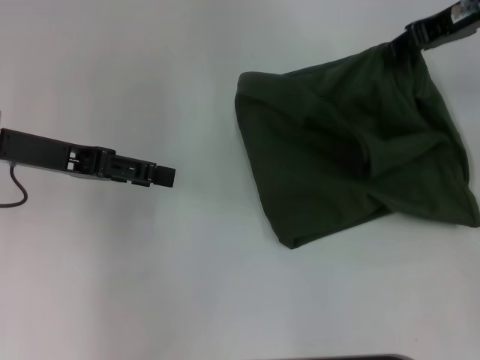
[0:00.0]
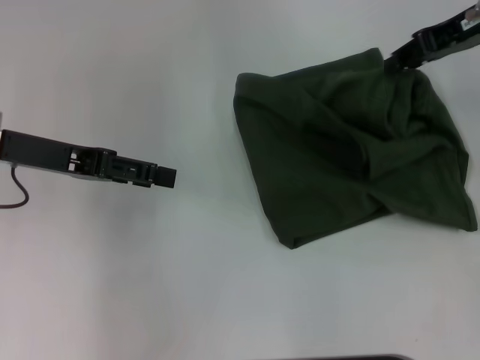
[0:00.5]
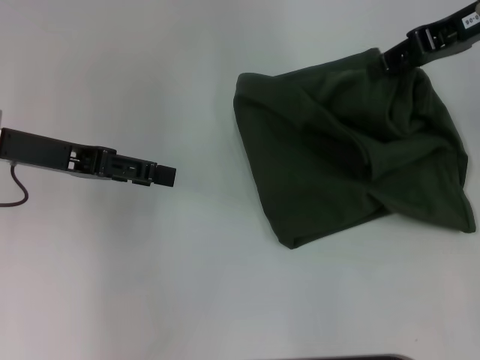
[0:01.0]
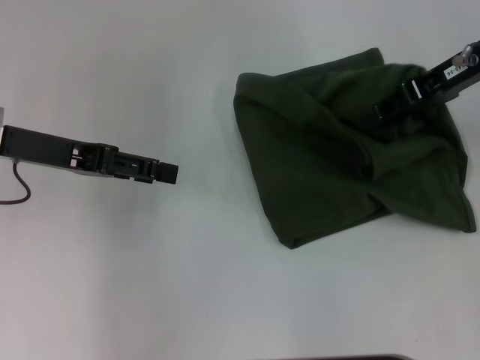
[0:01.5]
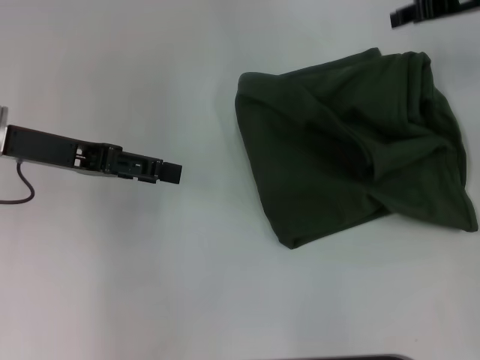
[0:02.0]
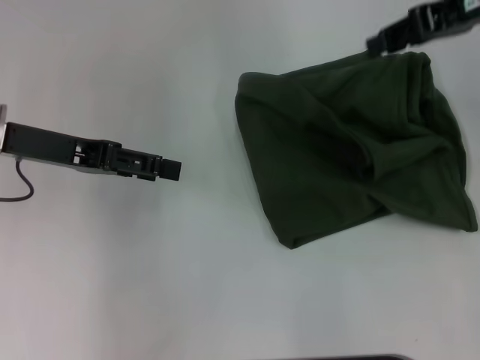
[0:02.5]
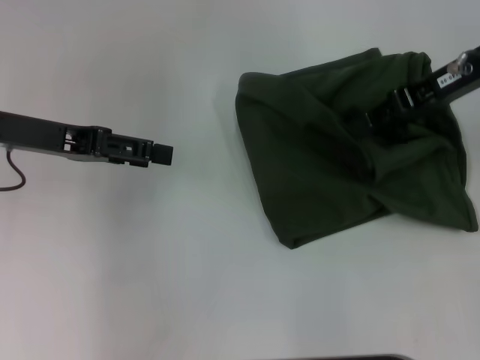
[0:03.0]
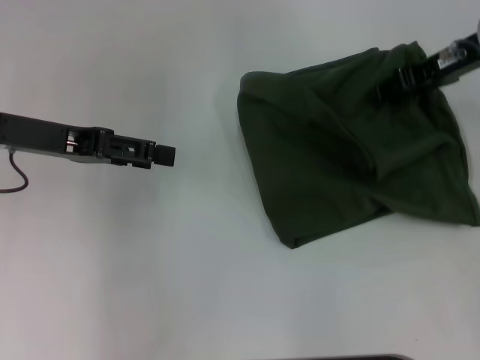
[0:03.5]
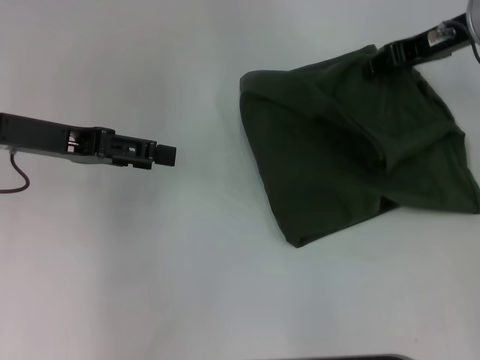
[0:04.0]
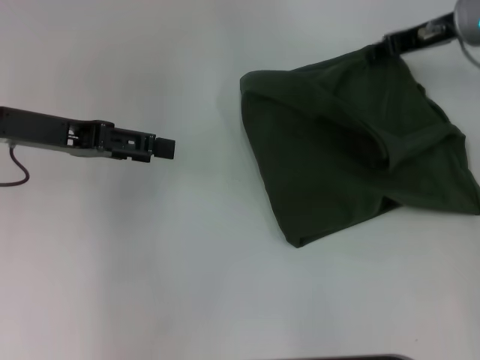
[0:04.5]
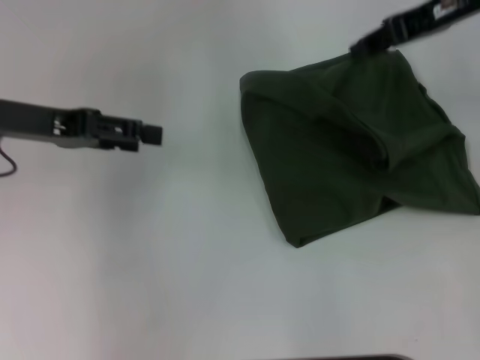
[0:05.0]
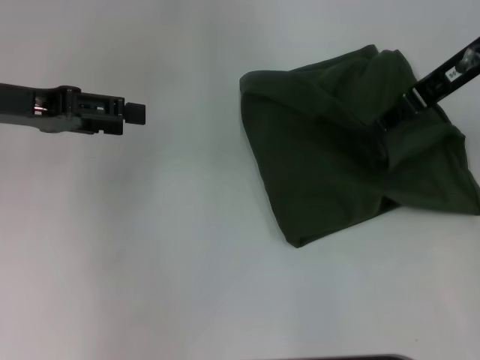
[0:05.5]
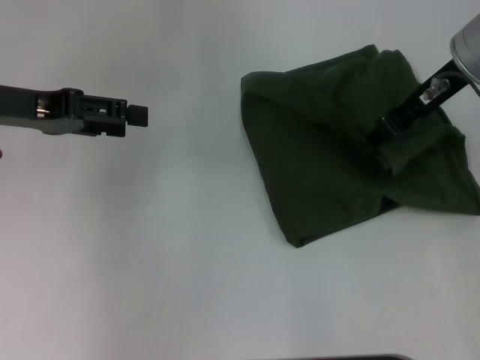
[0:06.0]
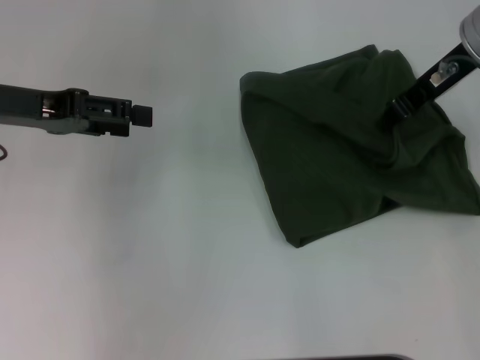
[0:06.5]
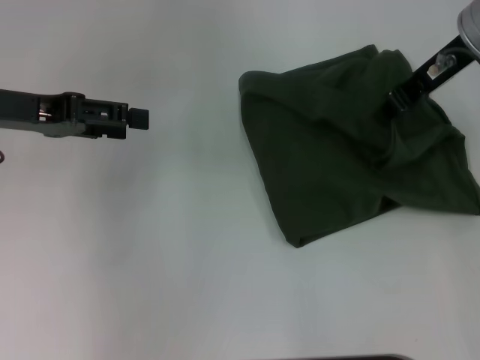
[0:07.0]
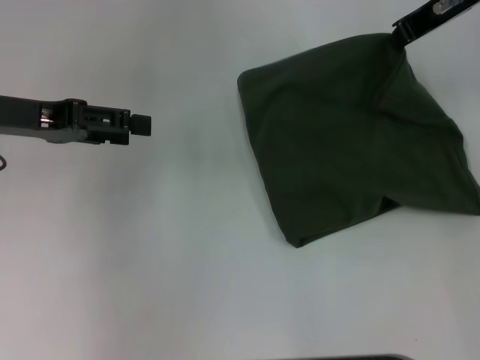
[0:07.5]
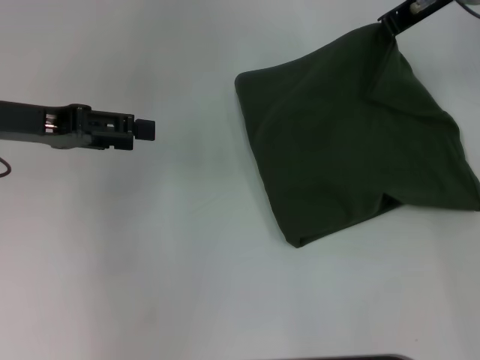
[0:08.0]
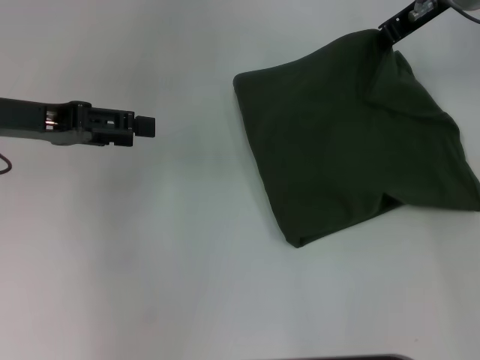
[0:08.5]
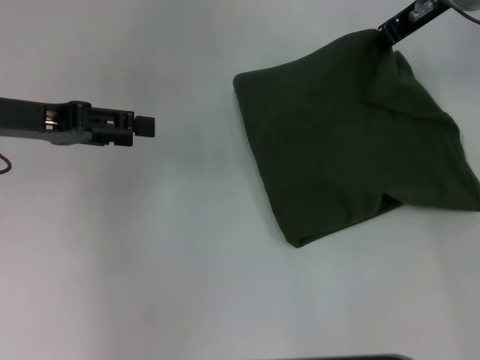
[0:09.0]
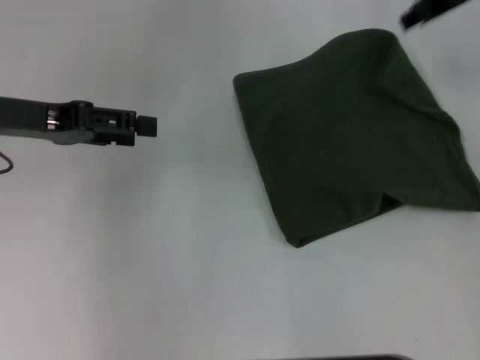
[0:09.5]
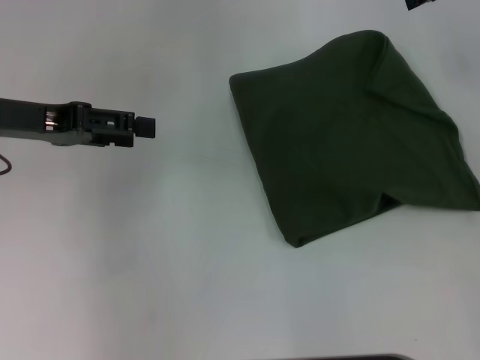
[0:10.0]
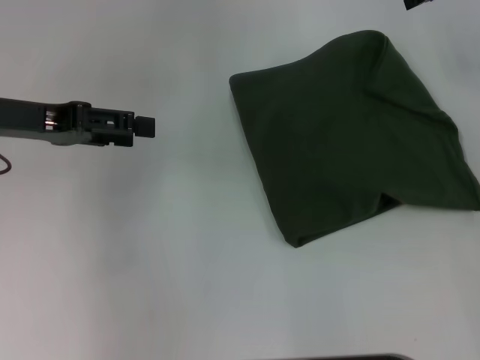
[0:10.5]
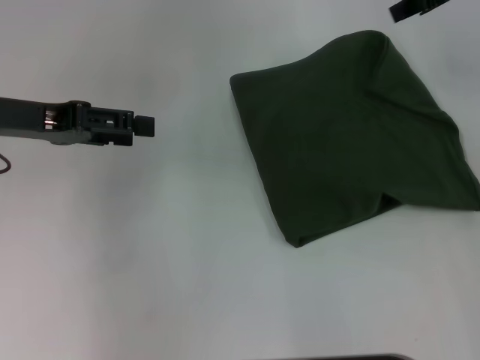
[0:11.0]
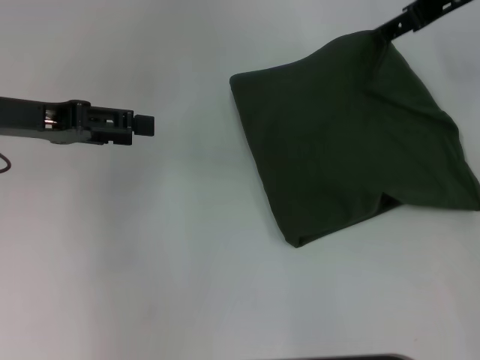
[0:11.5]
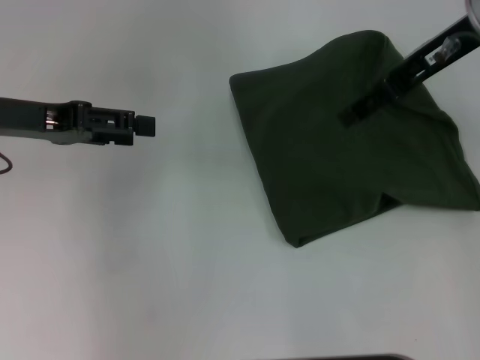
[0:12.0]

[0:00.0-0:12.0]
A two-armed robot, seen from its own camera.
0:00.0 to 0:02.0: The grippers move only a little.
0:04.0 to 0:06.0: The right gripper moves about 5 cm.
0:06.0 to 0:08.0: The right gripper moves about 5 cm, and closes.
0:08.0 to 0:10.0: The right gripper changes place by about 5 cm.
0:10.0 to 0:12.0: The right gripper ends up approximately 5 cm from where it was, and opens.

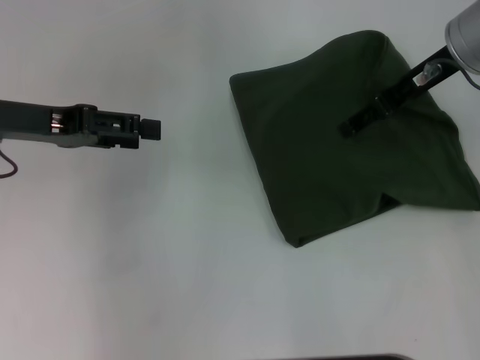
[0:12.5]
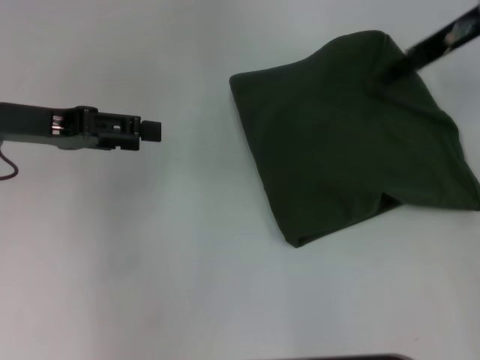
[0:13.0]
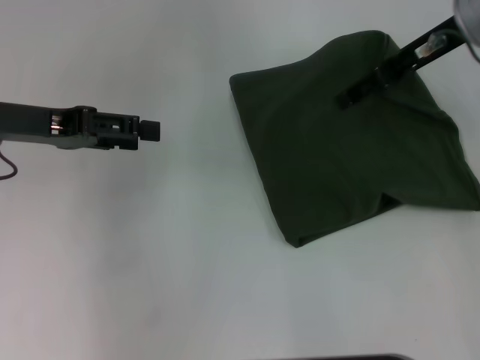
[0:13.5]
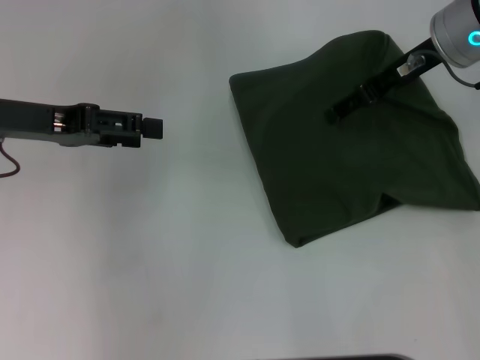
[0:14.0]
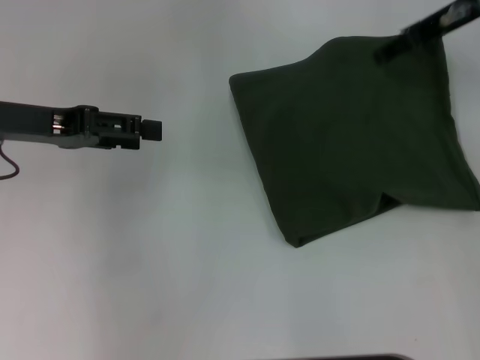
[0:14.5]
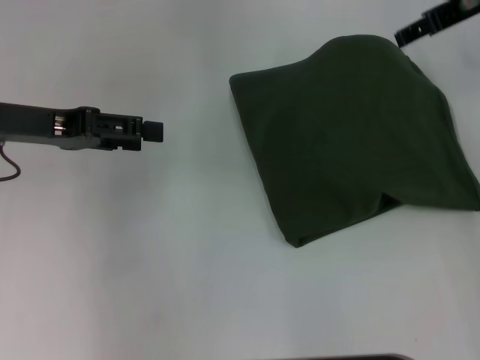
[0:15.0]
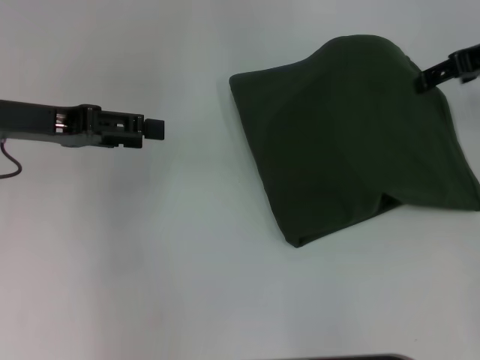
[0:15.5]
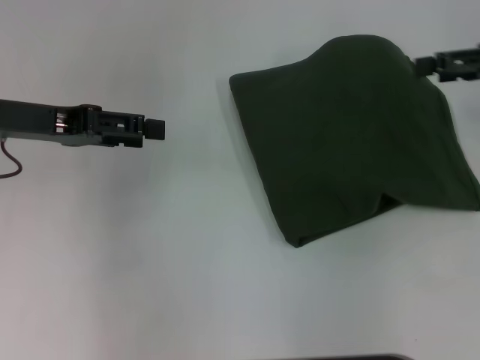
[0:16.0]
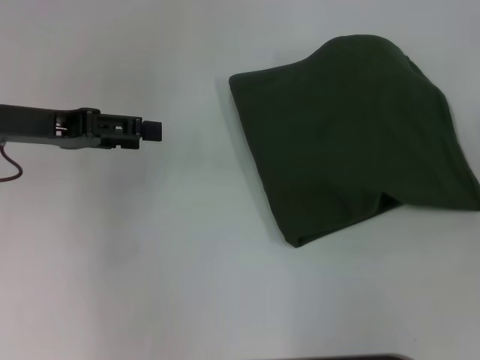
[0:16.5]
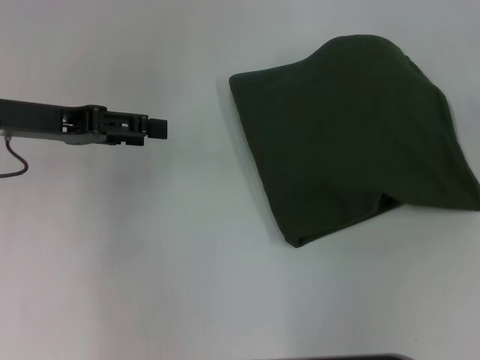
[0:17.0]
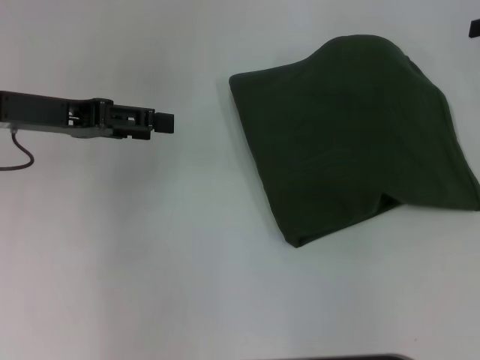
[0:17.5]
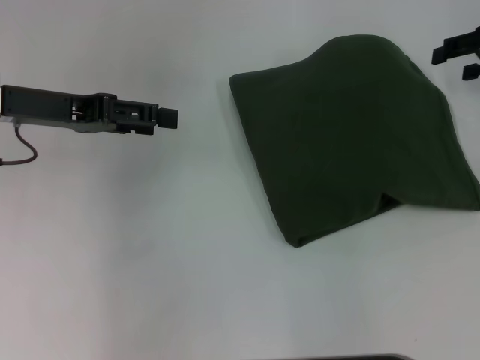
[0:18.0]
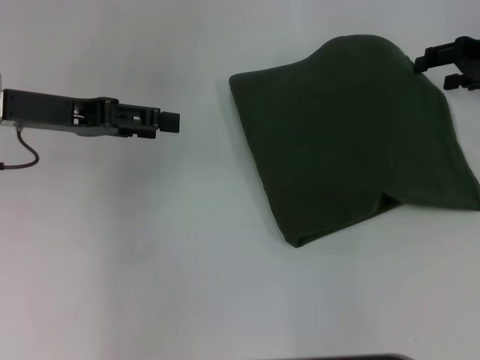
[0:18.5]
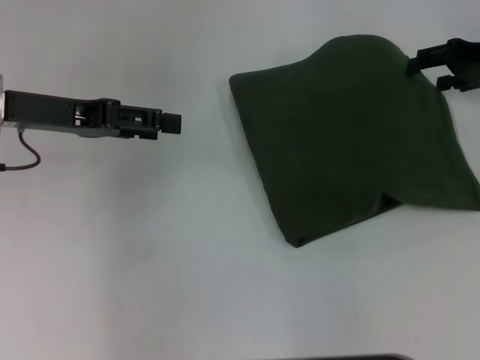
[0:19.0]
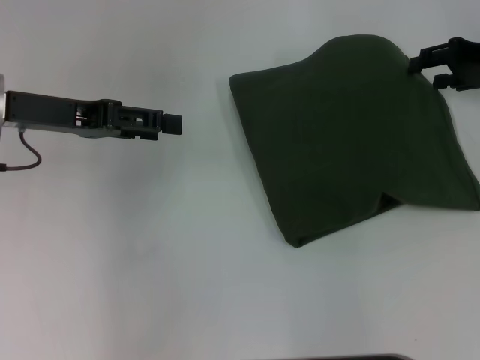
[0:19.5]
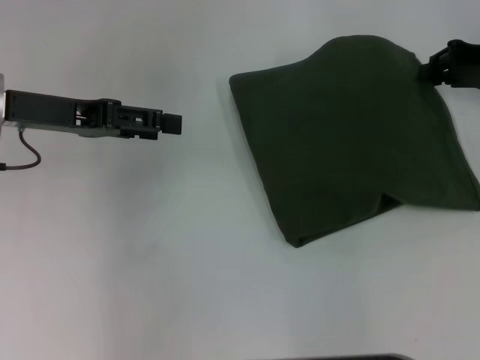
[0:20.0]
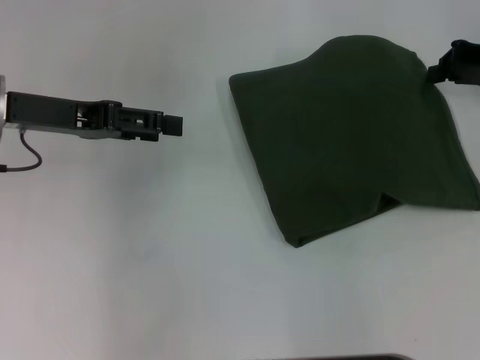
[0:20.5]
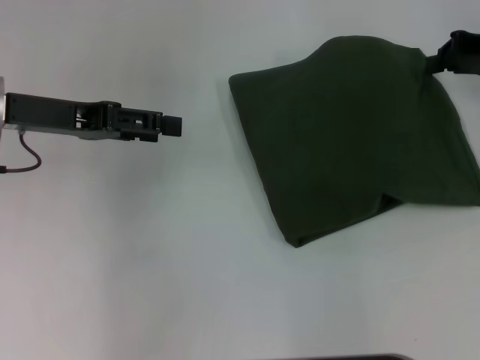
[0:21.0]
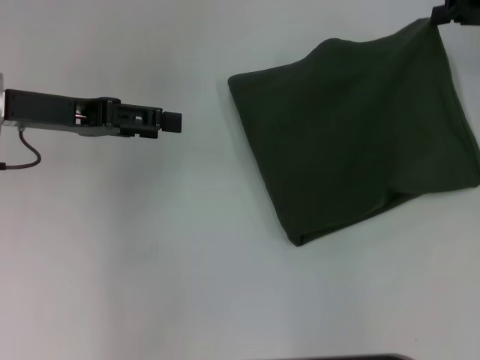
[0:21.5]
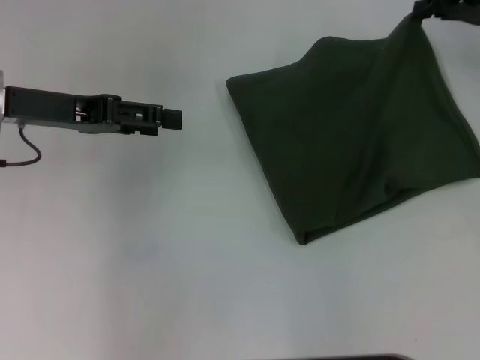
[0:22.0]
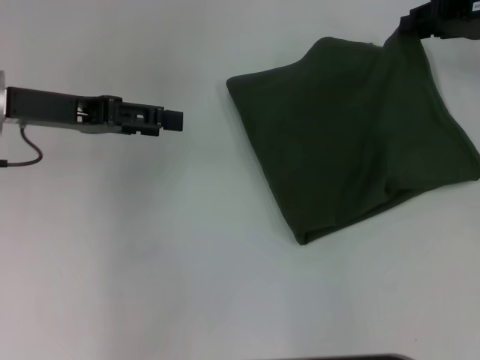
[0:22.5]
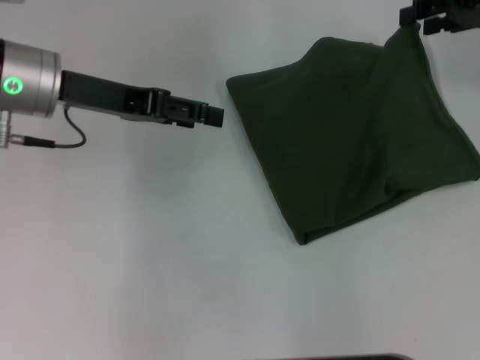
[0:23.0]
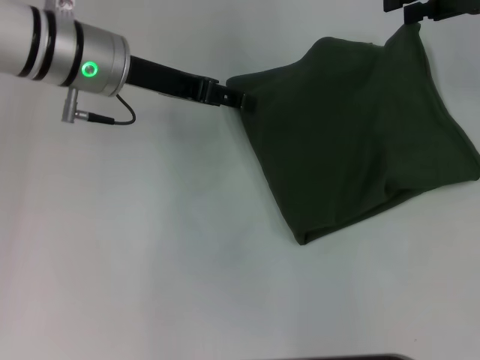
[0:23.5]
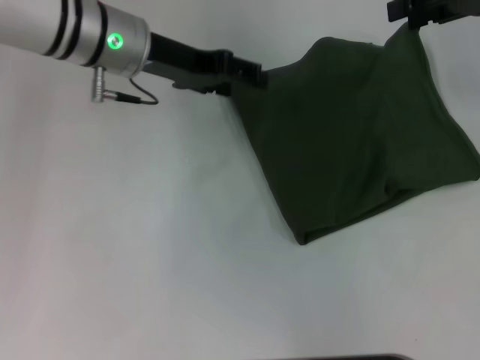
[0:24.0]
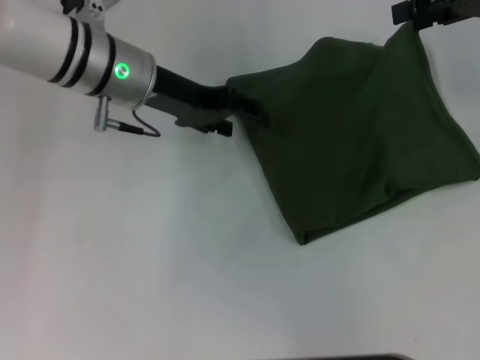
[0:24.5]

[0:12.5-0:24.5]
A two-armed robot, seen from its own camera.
0:12.5 to 0:14.5: The grippers make only small movements.
0:14.5 to 0:16.5: The right gripper shifts roughly 25 cm to the right, backward and downward.
0:16.5 to 0:18.5: The right gripper moves forward and to the left, approximately 15 cm.
0:18.5 to 0:20.5: The right gripper closes up.
0:20.5 to 0:22.5: The grippers make only small movements.
0:22.5 to 0:24.5: The right gripper moves upward, approximately 5 cm; the left gripper moves to the right and forward, roughly 15 cm.

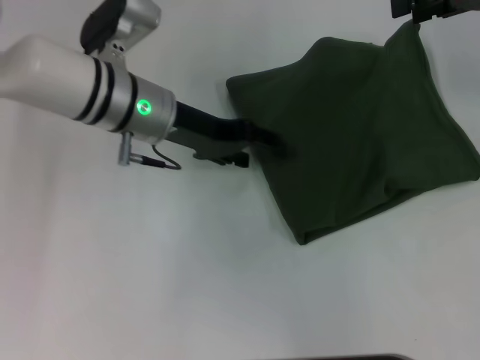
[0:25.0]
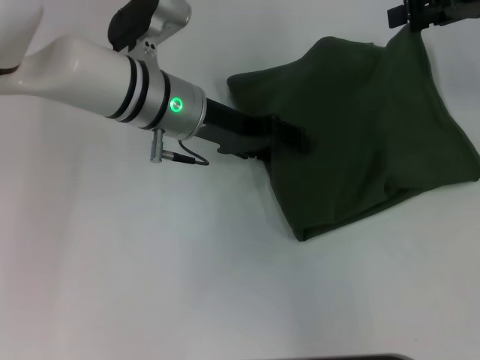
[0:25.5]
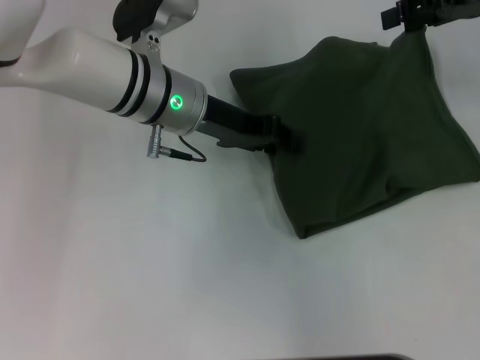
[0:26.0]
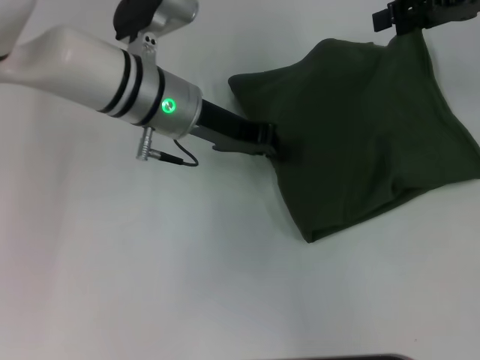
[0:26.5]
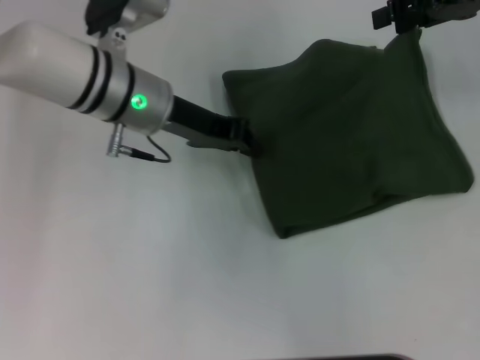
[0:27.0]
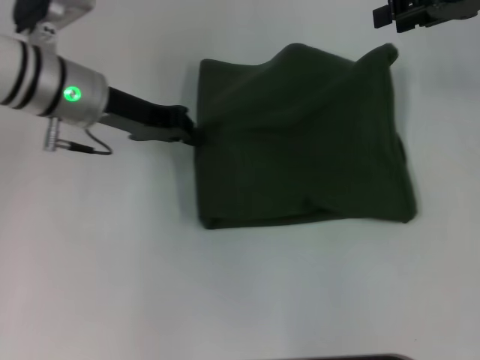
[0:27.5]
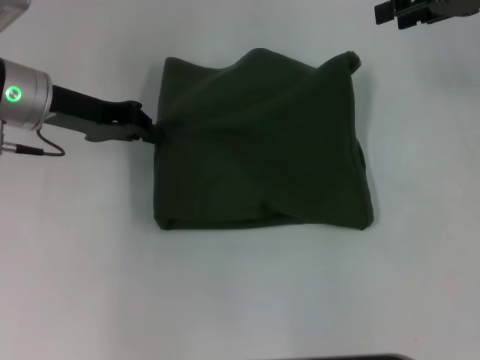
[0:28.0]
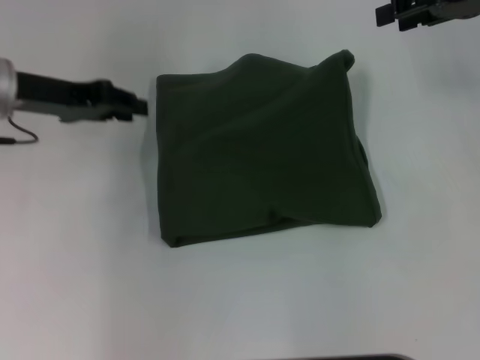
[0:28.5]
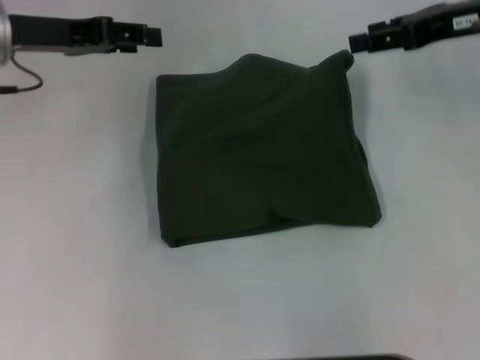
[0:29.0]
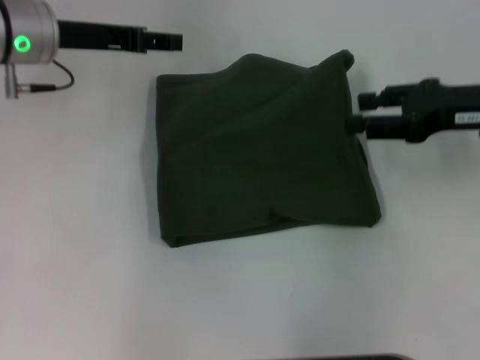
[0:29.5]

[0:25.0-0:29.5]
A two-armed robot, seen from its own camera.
0:25.0 to 0:27.0: The left gripper closes.
0:27.0 to 0:29.5: The right gripper travels backward and downward by about 15 cm, while the left gripper goes some 10 cm to the left, and opens up.
